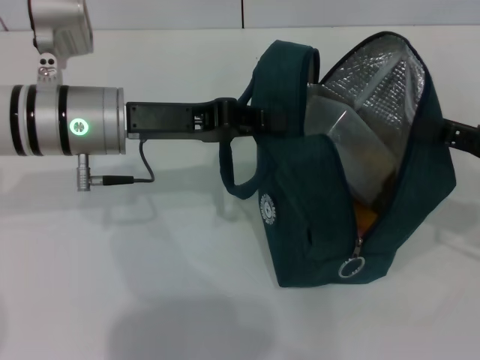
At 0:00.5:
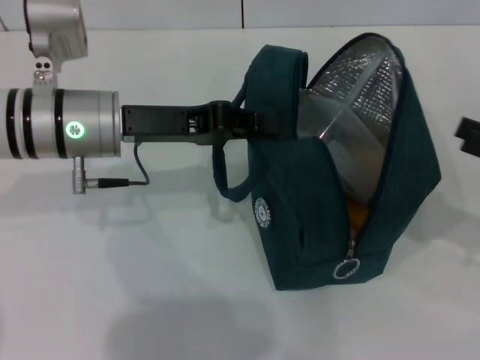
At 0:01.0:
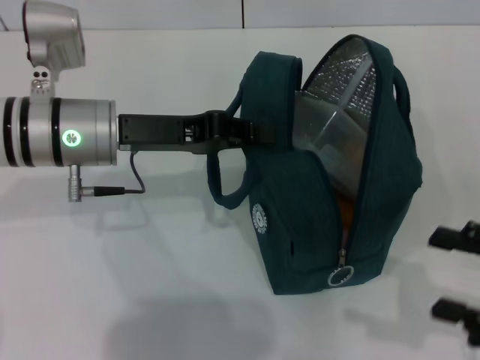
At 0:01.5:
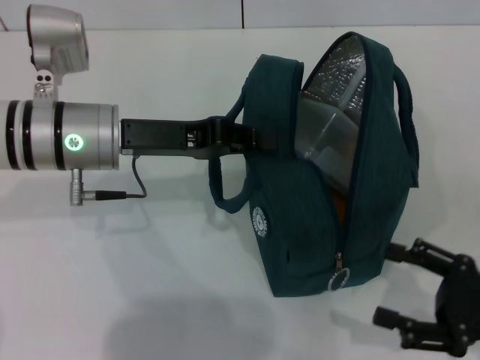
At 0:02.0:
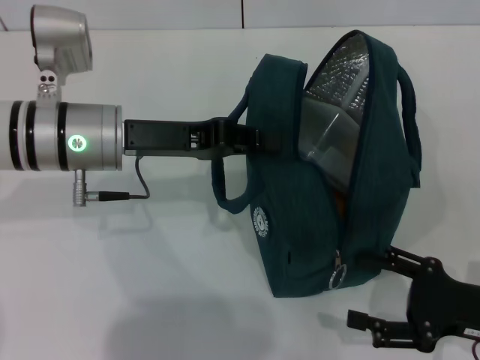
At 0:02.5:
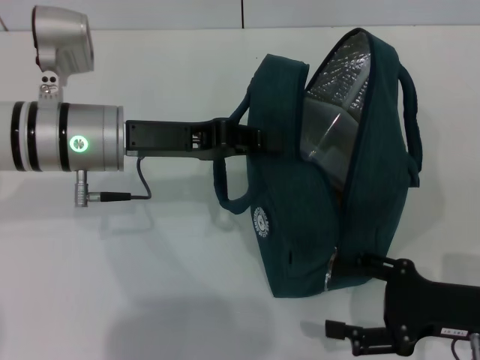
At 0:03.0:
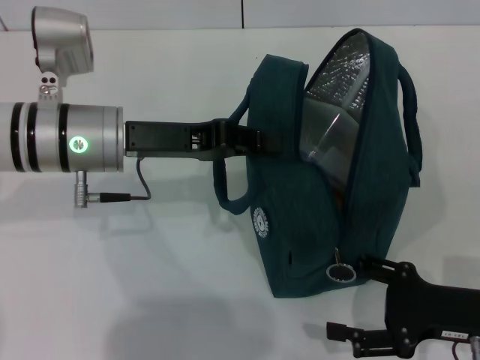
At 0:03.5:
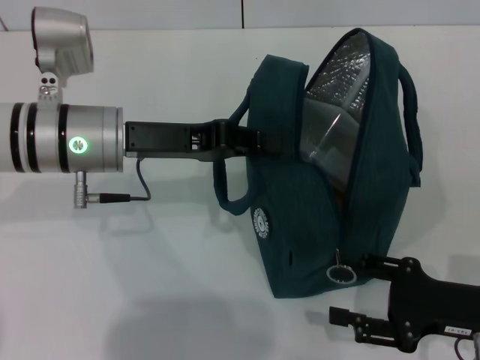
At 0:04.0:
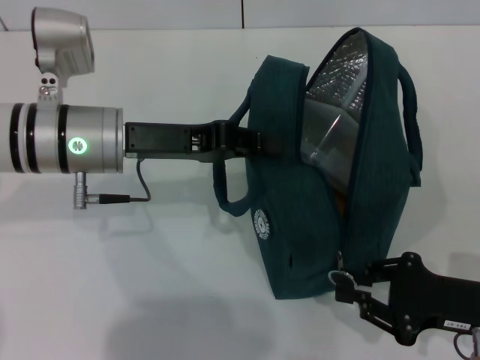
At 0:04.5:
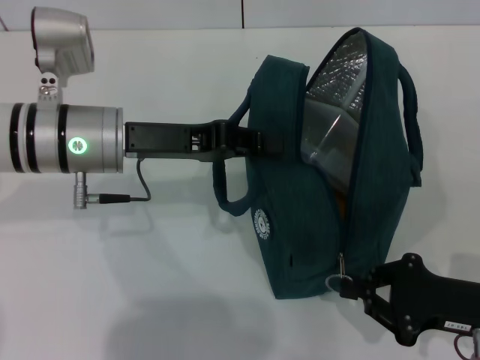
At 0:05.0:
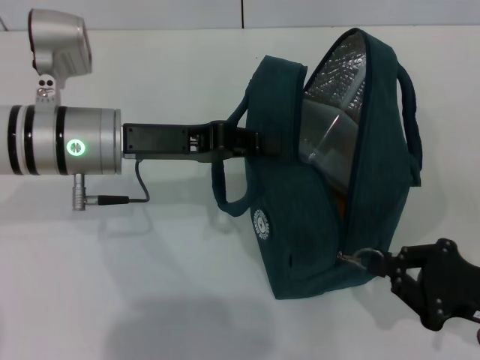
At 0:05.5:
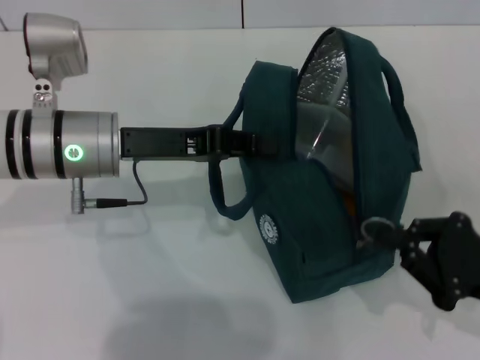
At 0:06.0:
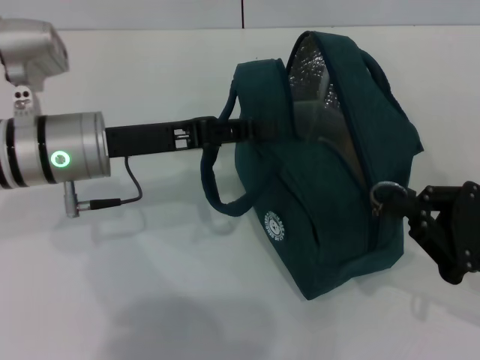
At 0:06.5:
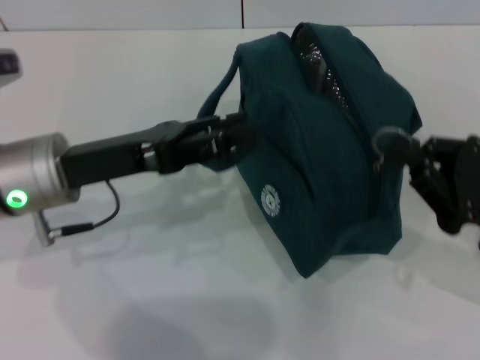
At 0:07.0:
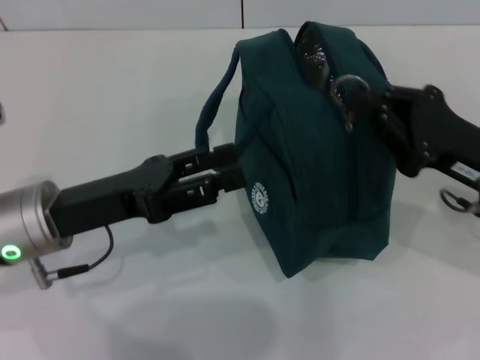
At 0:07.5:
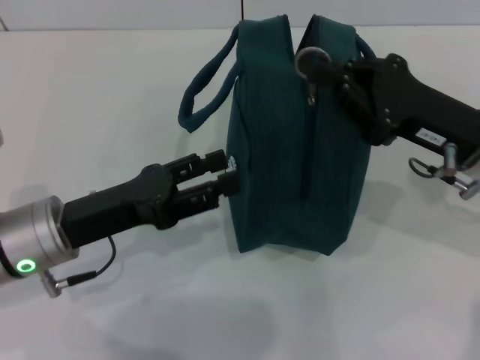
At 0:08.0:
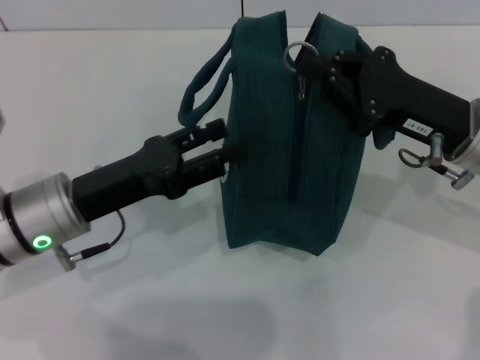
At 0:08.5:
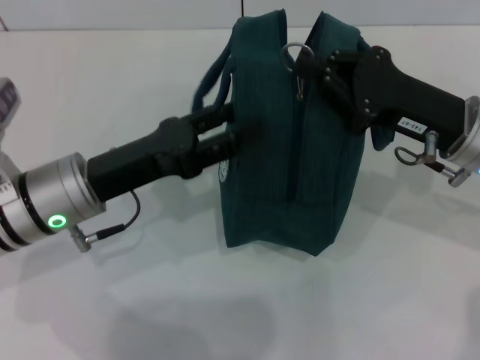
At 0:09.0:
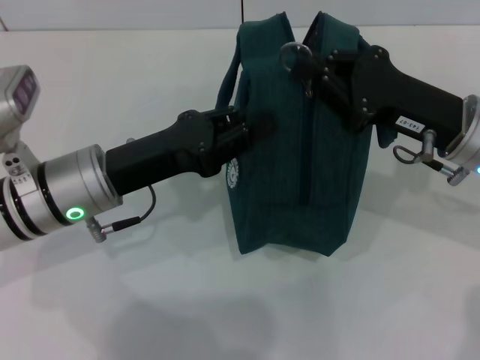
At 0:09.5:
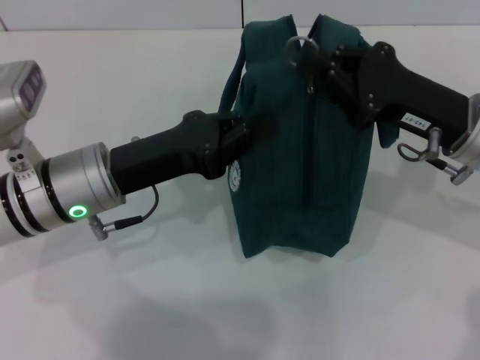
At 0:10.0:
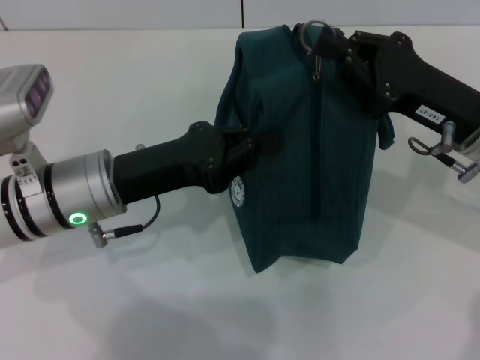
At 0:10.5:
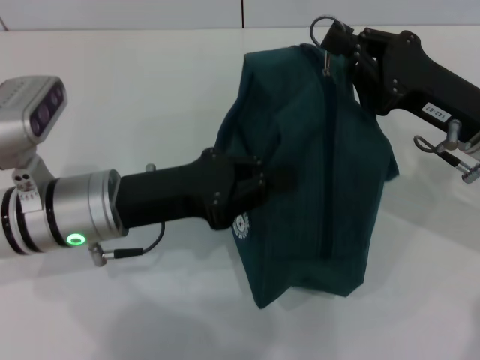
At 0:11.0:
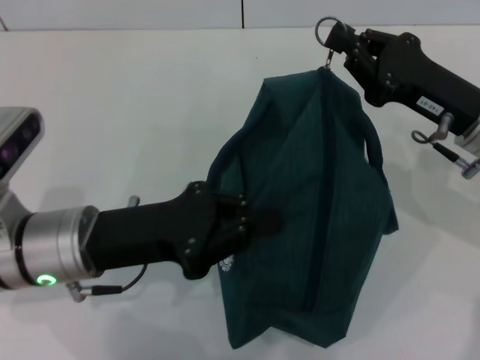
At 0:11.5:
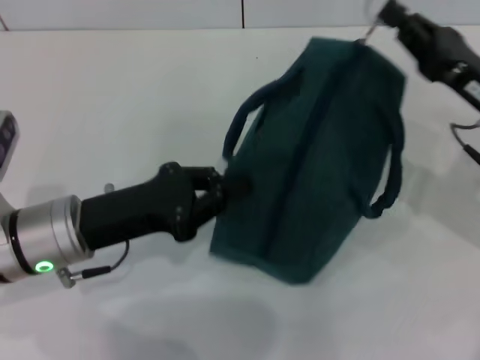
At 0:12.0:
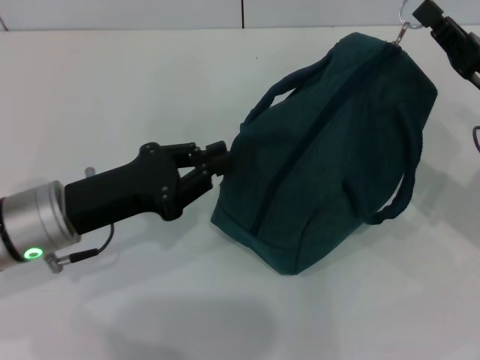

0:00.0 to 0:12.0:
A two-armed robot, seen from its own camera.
0:00.0 to 0:02.0: The right gripper heads downward and backward, covering approximately 10 cm, and opens.
0:02.0 to 0:04.0: The right gripper closes its fingers.
0:04.0 to 0:06.0: The right gripper closes.
0:06.0 to 0:08.0: The left gripper goes roughly 5 cm backward, and opens. Meanwhile the right gripper goes approximately 15 cm forward, to the left and upward.
0:08.0 to 0:10.0: The left gripper closes.
0:10.0 to 0:12.0: The right gripper shifts approximately 5 cm to the right.

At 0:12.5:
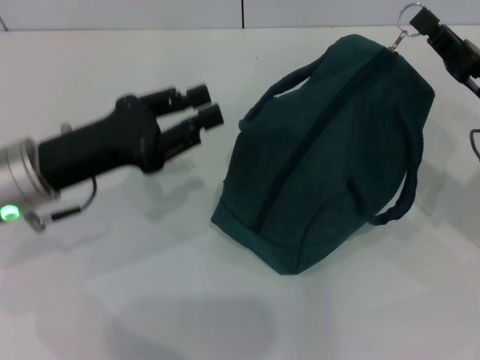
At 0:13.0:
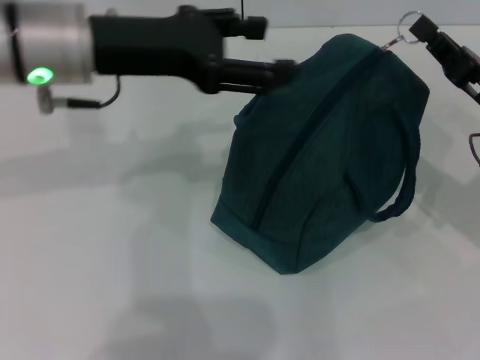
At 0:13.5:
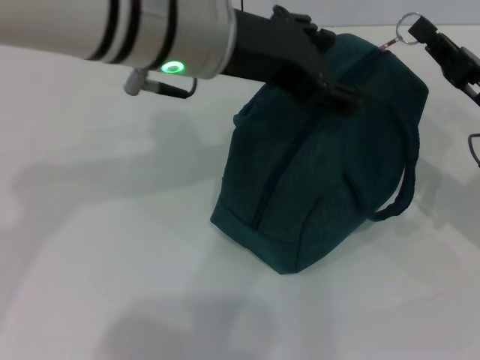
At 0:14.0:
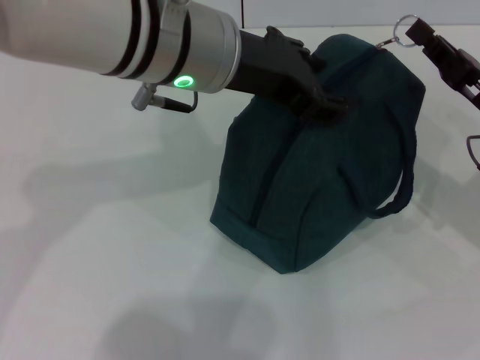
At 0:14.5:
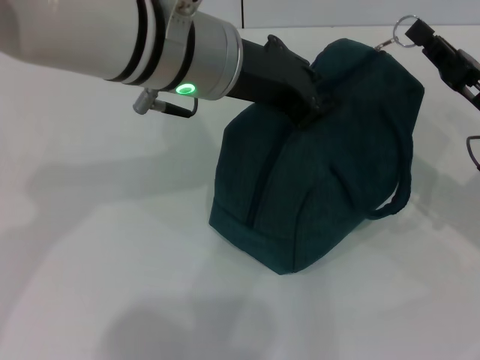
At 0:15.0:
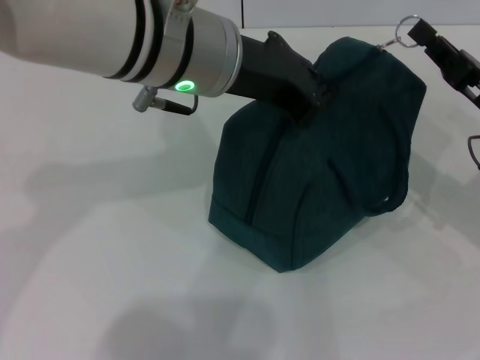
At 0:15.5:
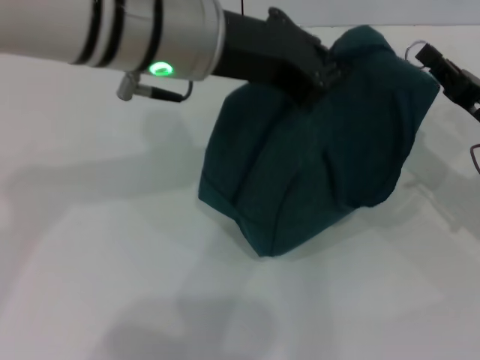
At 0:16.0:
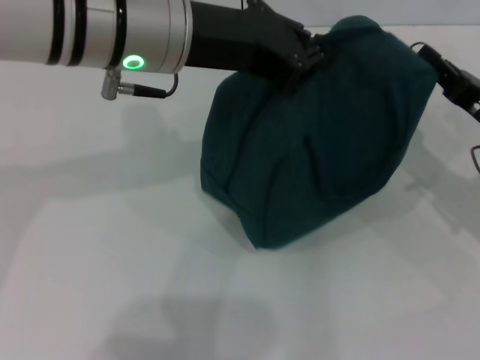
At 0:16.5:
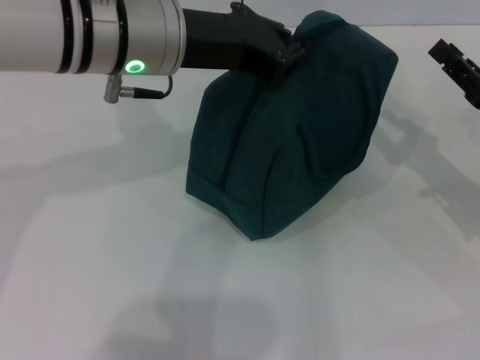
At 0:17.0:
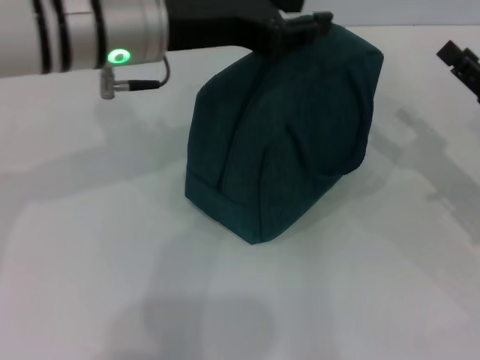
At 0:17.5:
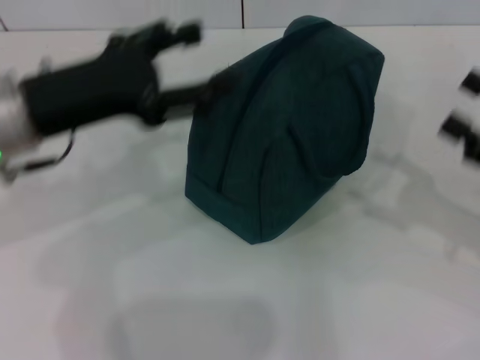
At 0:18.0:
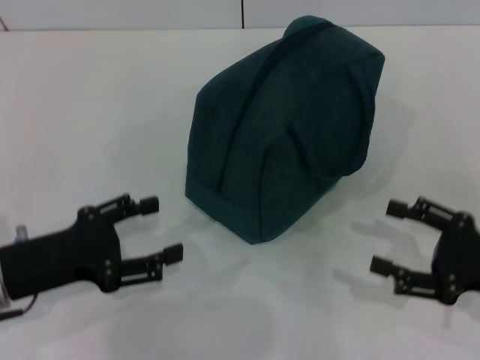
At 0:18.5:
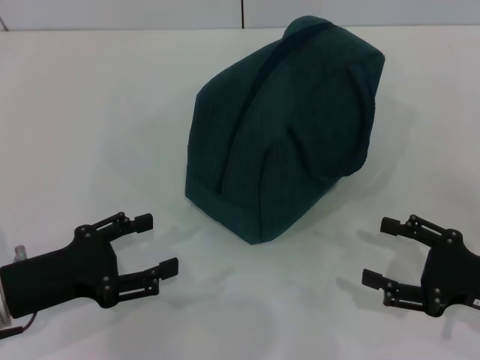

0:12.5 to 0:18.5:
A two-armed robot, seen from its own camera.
Step, 0:16.5 to 0:17.0: Hold the lunch bag with your left hand.
0:12.5 to 0:14.5: The left gripper travels to the right and upward by about 20 cm, and opens and closes again.
0:16.5 to 0:18.5: The right gripper moves backward, approximately 10 cm, and opens up. The left gripper shifts about 30 cm downward, to the left and backward, and opens up.

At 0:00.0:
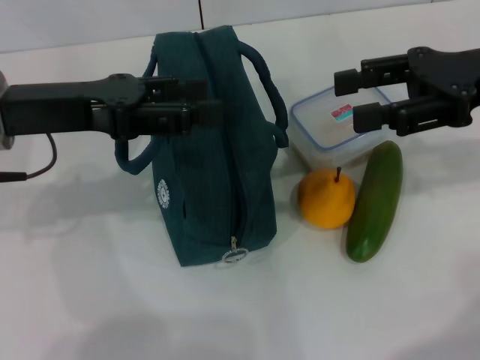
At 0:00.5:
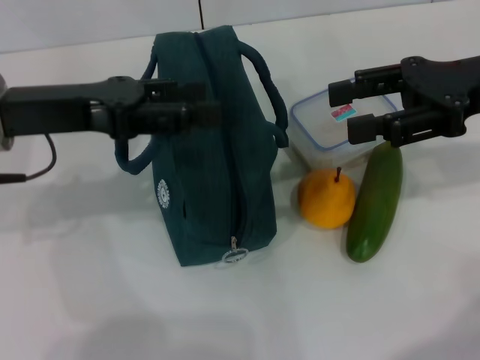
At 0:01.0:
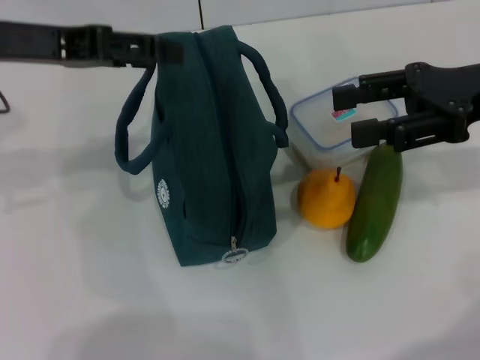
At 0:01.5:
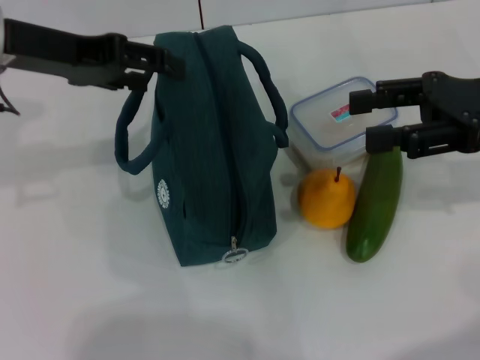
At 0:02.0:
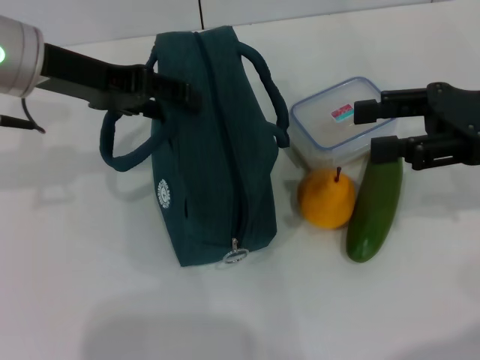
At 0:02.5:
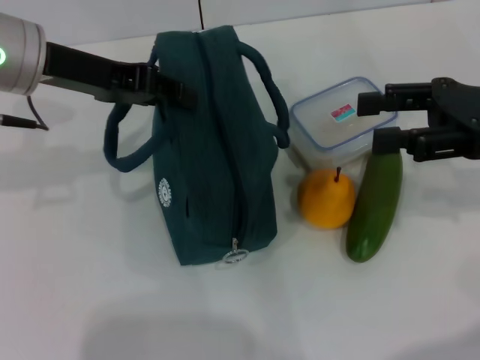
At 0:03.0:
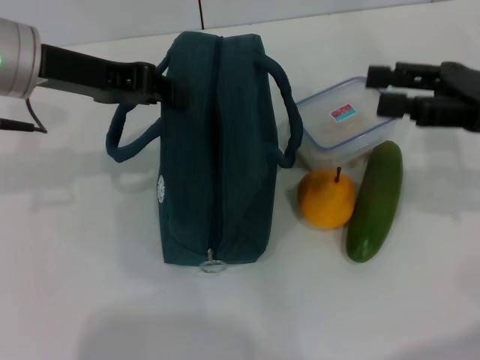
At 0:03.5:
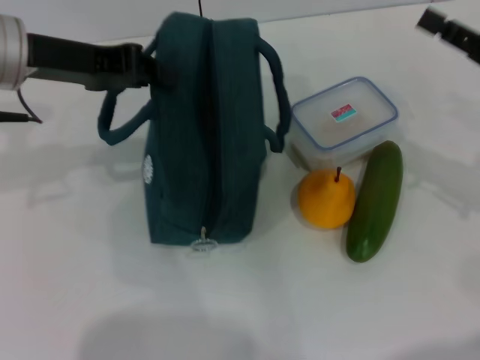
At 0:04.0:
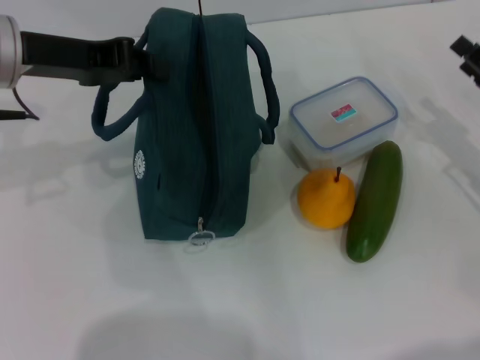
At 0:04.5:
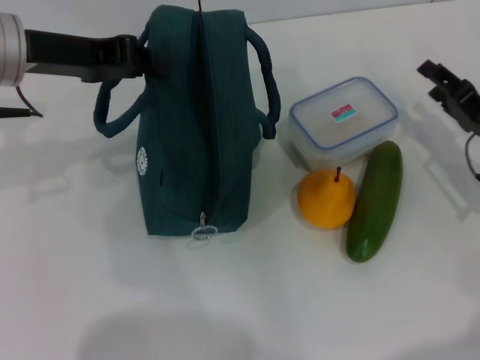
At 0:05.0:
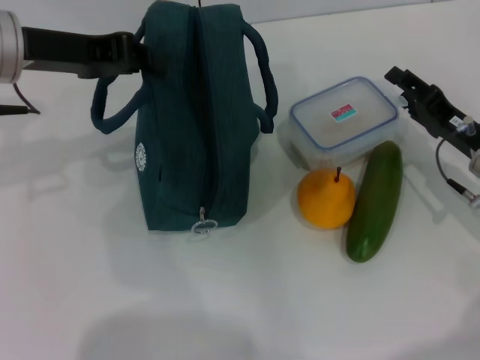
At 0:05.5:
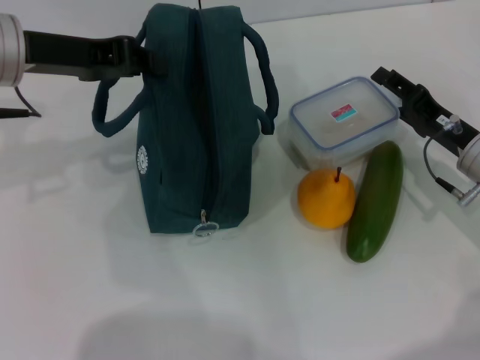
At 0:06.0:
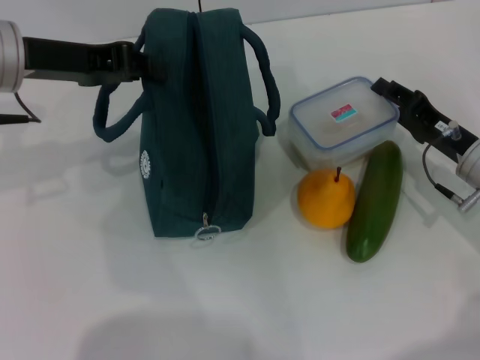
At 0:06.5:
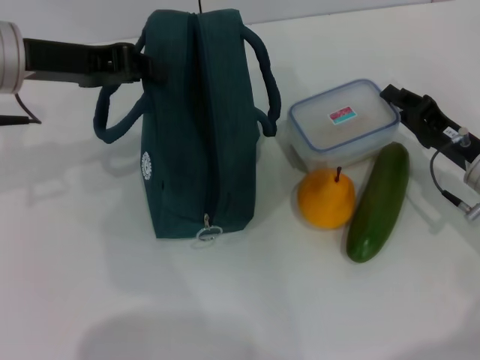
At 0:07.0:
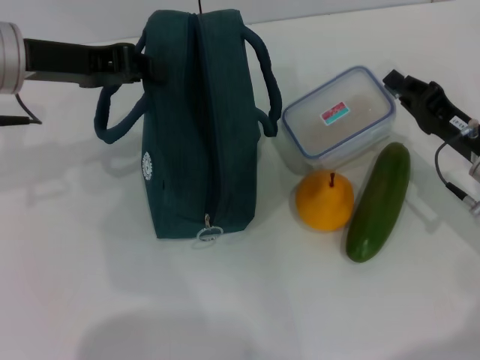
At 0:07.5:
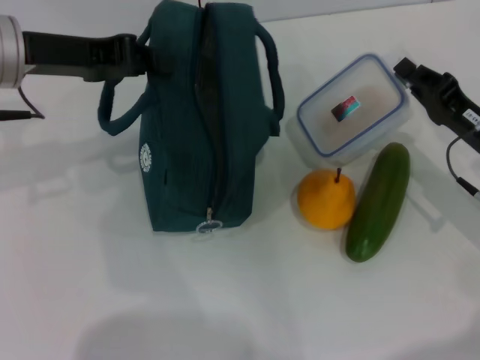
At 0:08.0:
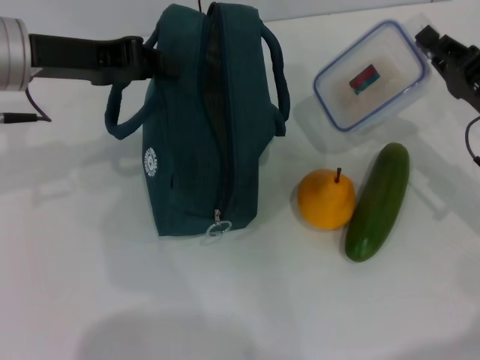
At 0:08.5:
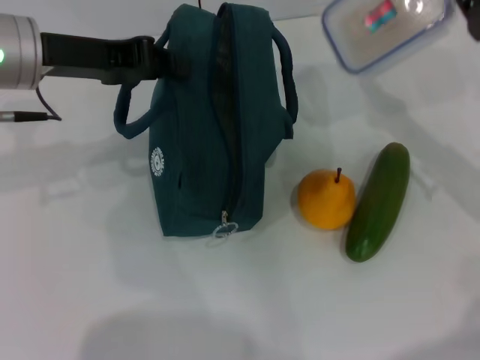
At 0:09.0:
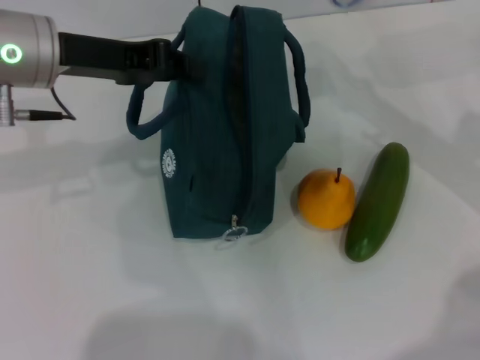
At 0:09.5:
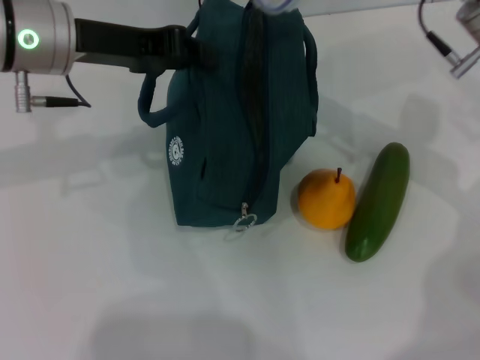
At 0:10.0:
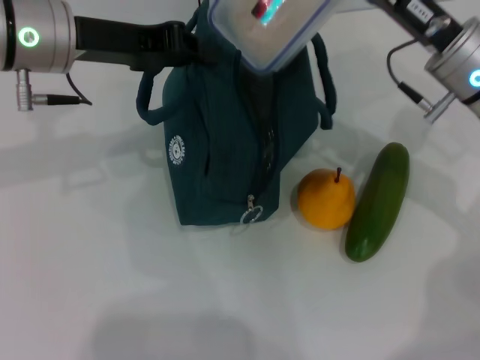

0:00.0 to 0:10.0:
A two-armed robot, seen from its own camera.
Step, 0:00.0 to 0:02.5: Hold the lunch bag with your left hand.
Step, 0:03.0 to 0:07.0: Pick up the lunch box with your right hand.
0:00.0 to 0:02.0: The left gripper ends up some 5 cm from where it was.
0:02.0 to 0:04.0: The left gripper closes up. The right gripper goes some 10 cm downward.
0:04.0 to 0:06.0: The right gripper moves to the left, roughly 5 cm.
0:06.0 to 0:08.0: The right gripper closes up.
0:08.0 to 0:10.0: The right gripper heads to the left, upward and forward, covering approximately 10 cm.
